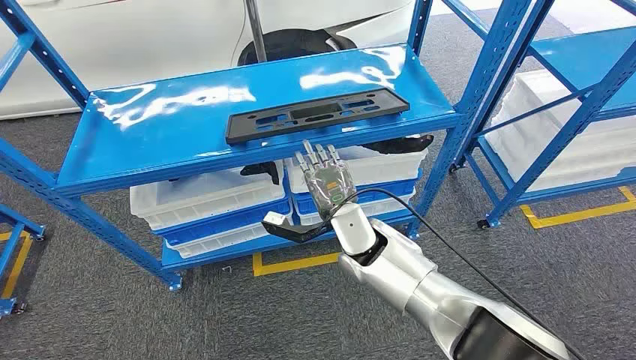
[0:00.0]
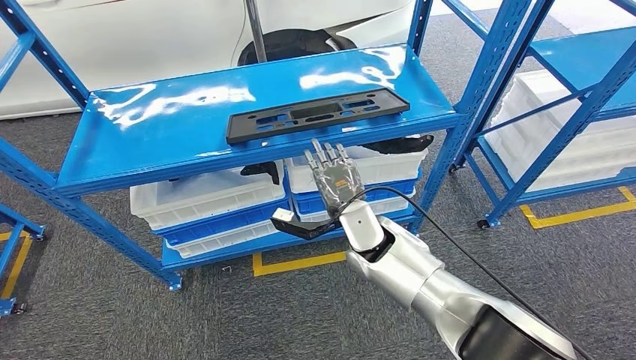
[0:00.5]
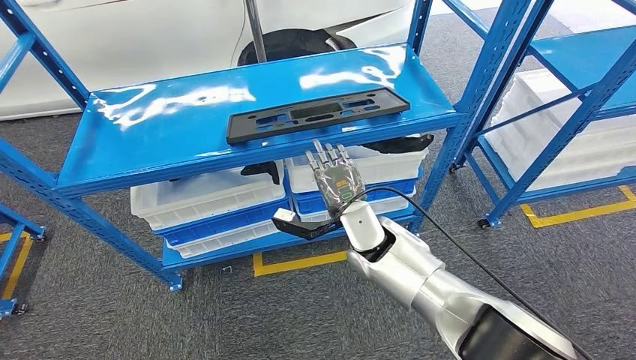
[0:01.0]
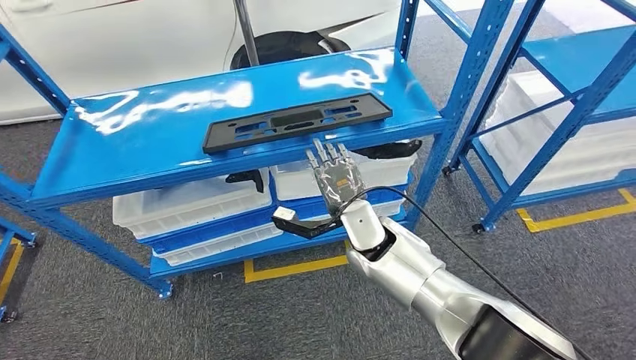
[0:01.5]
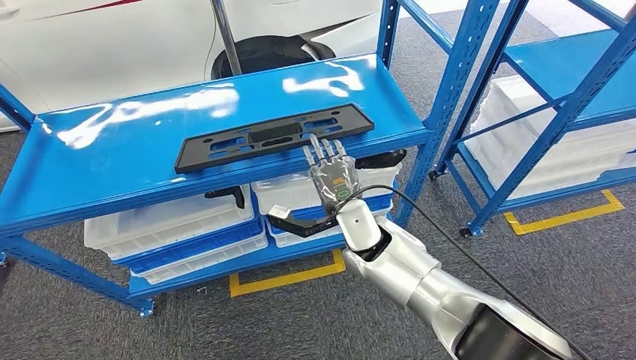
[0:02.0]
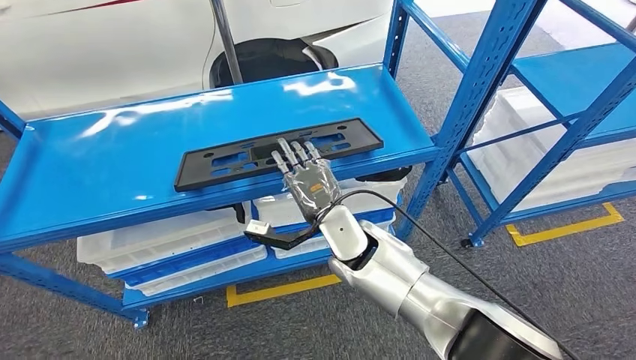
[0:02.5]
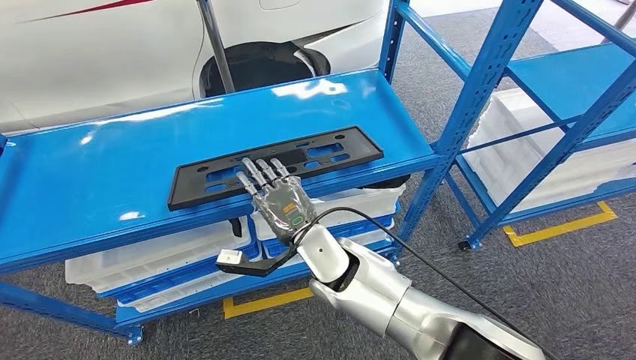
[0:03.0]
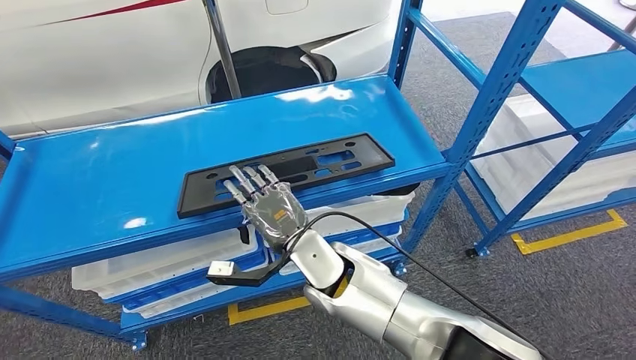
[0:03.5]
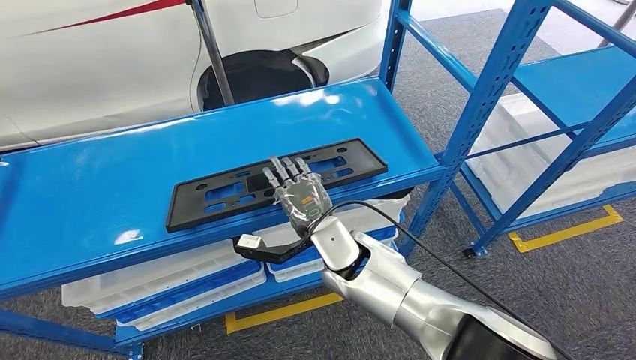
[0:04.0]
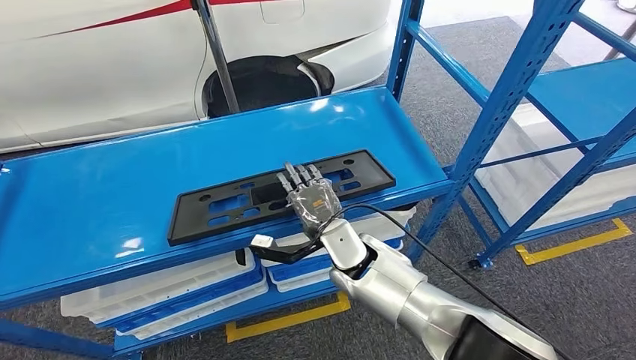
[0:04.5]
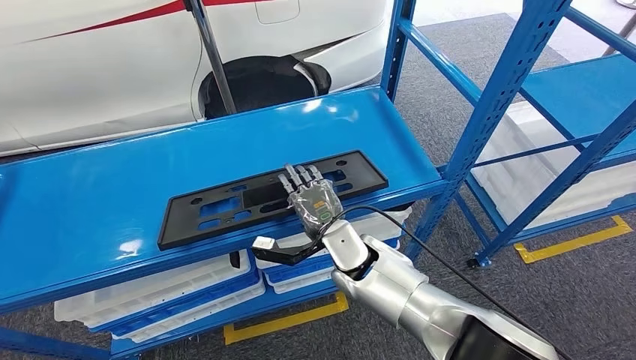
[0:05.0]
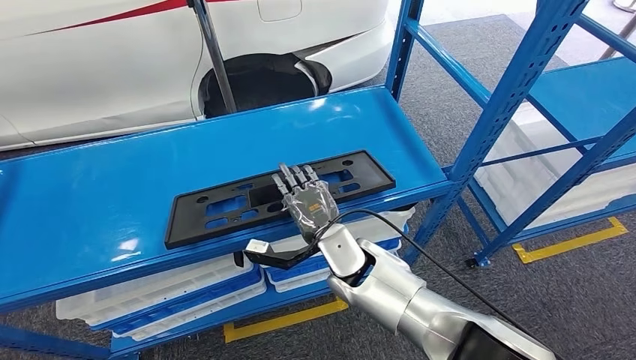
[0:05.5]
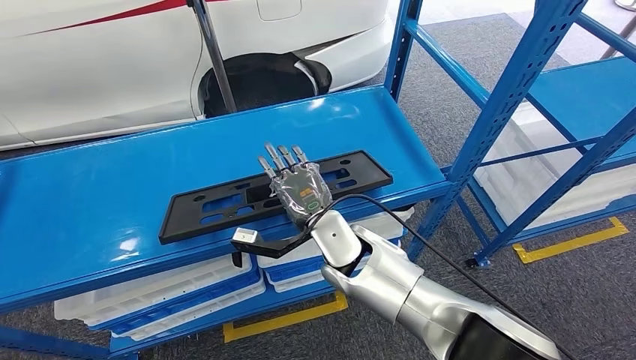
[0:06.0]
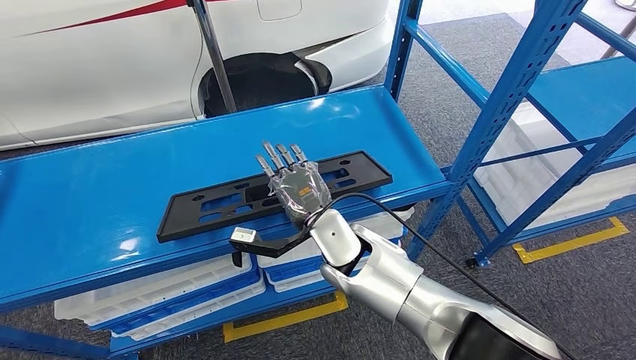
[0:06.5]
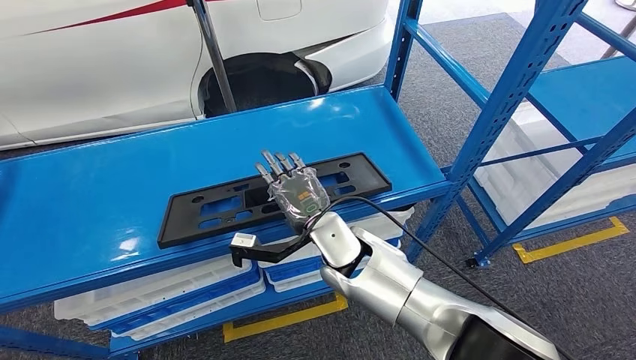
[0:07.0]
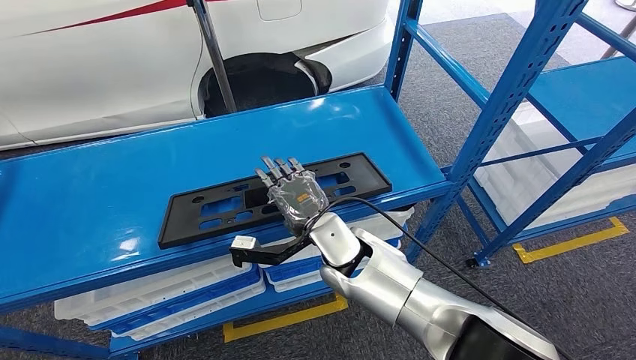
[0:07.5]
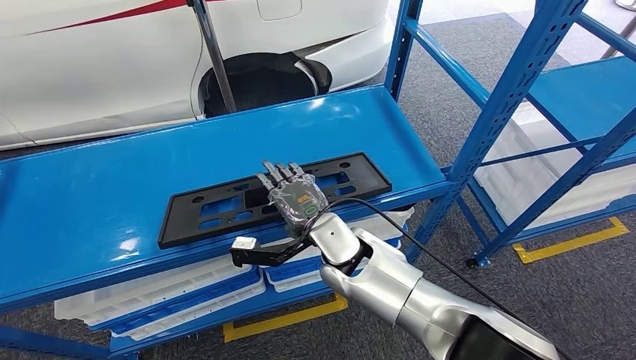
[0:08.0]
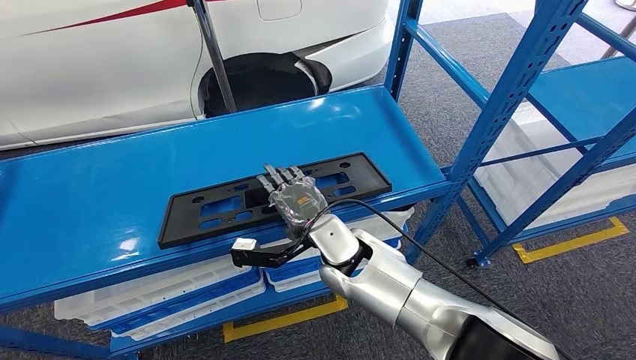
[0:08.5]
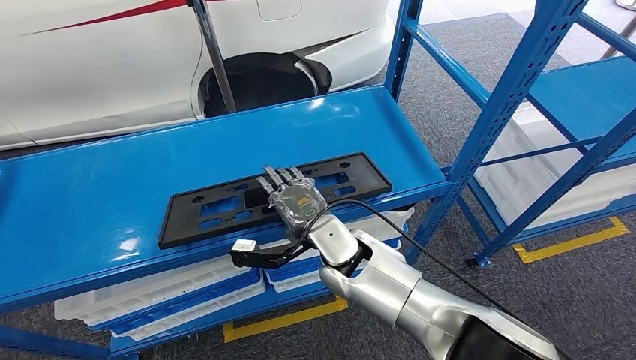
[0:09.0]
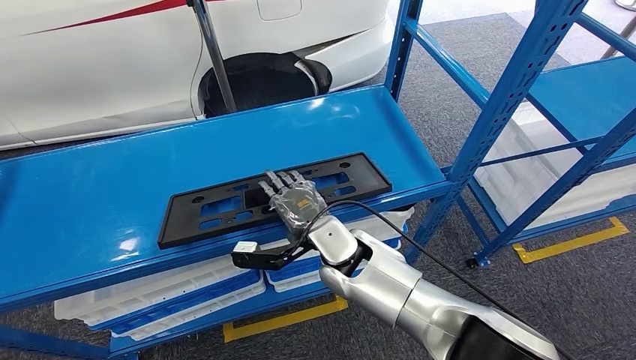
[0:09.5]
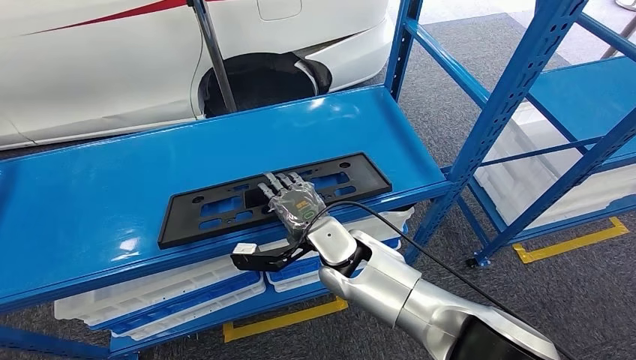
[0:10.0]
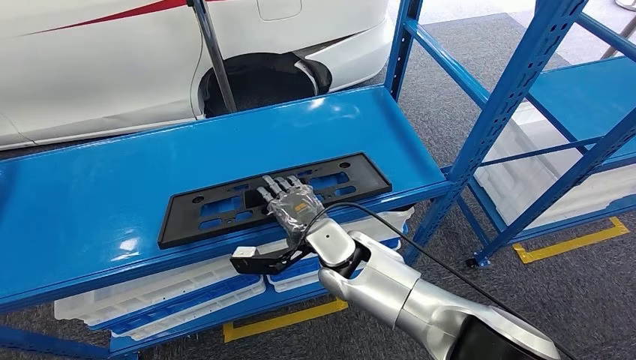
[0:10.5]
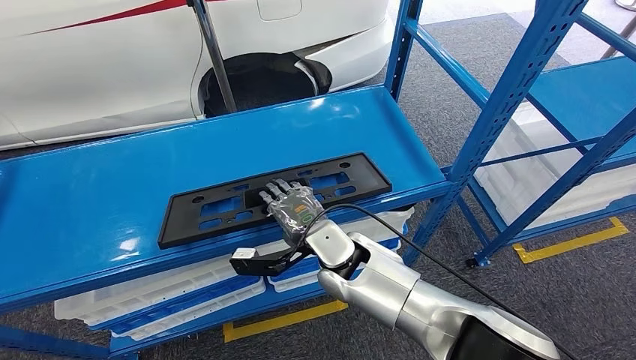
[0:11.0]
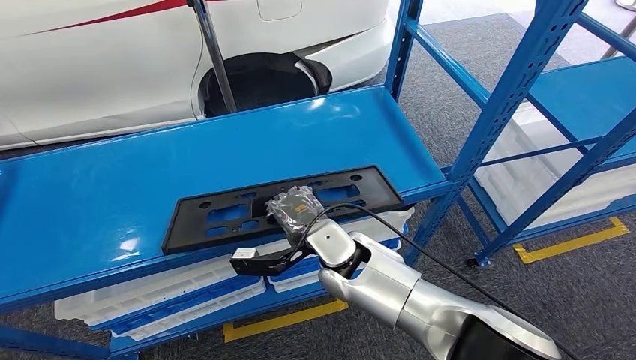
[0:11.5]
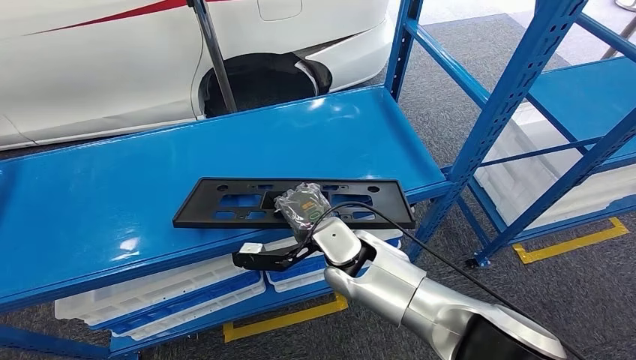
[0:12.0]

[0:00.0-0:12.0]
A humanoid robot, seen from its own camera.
0:06.0 to 0:10.0: The hands make only small movements.
0:10.0 to 0:12.0: Both hands stay put.

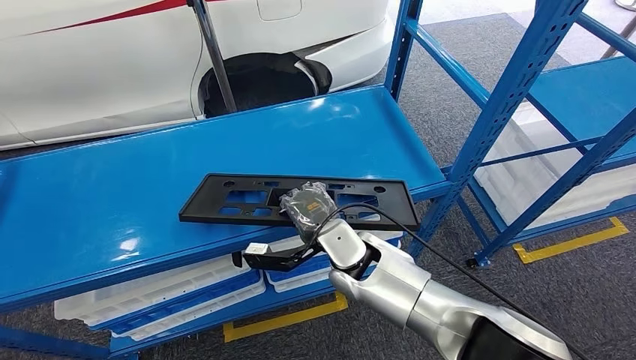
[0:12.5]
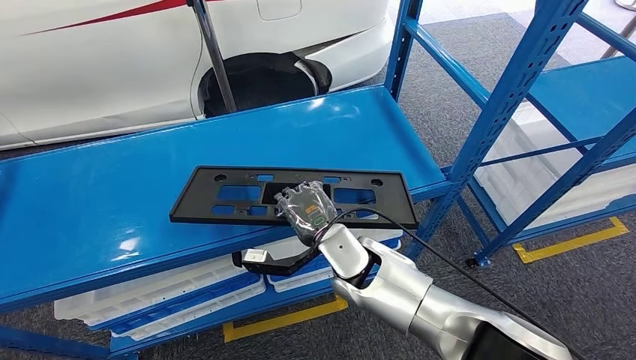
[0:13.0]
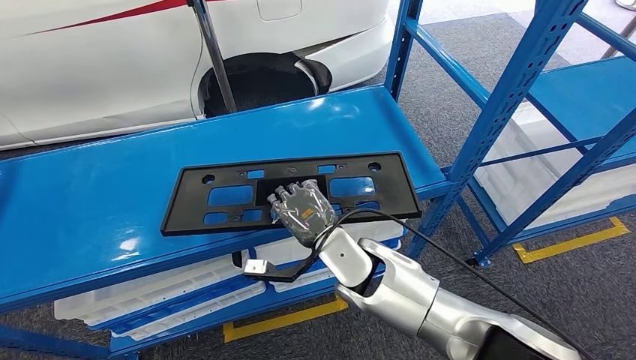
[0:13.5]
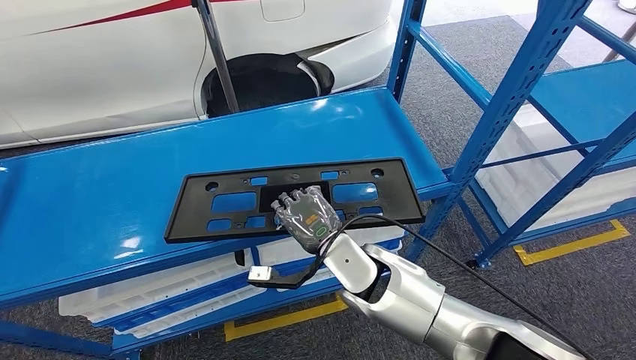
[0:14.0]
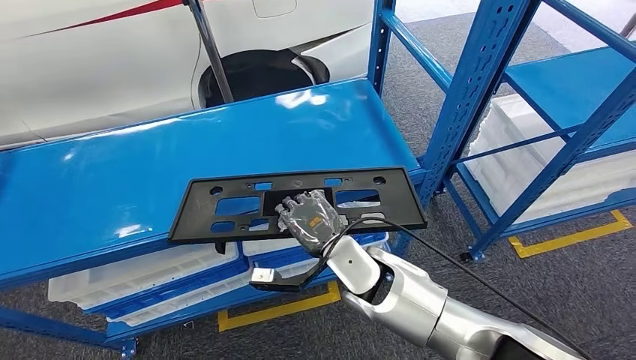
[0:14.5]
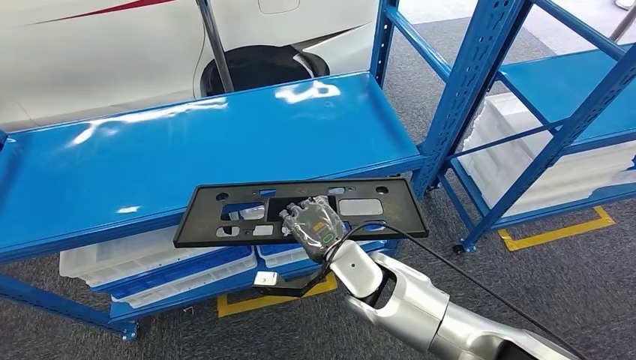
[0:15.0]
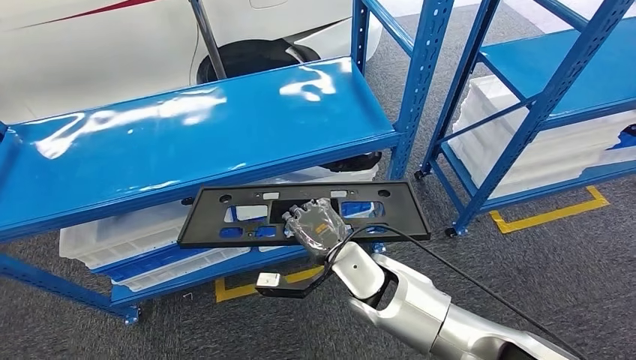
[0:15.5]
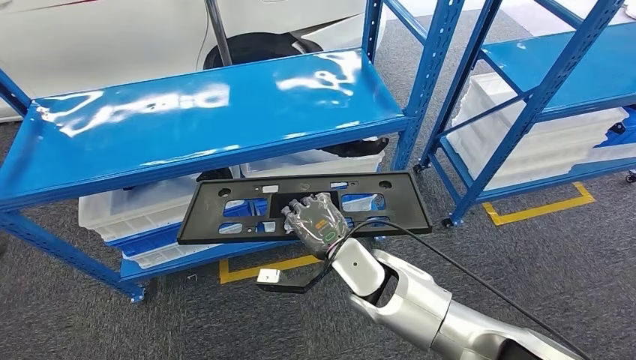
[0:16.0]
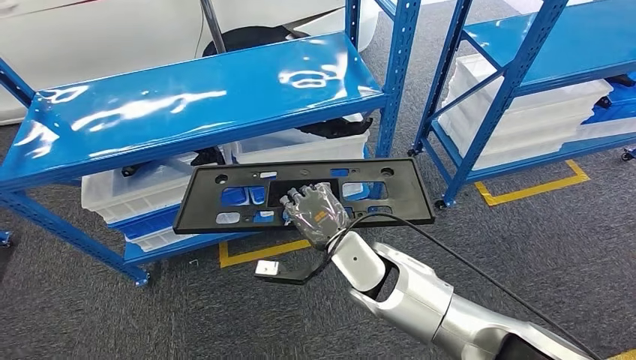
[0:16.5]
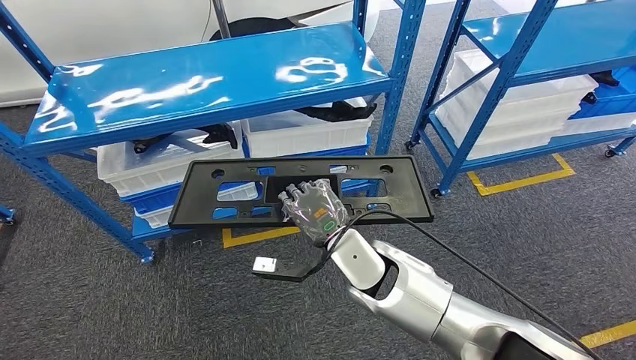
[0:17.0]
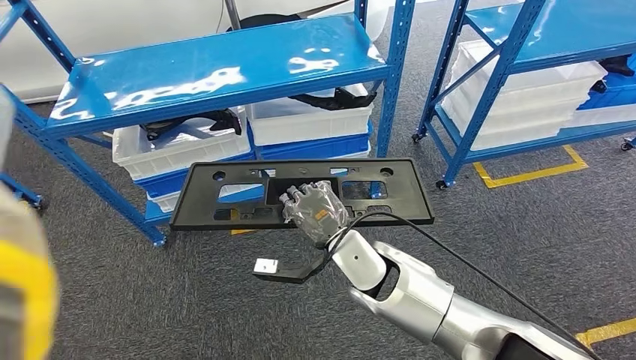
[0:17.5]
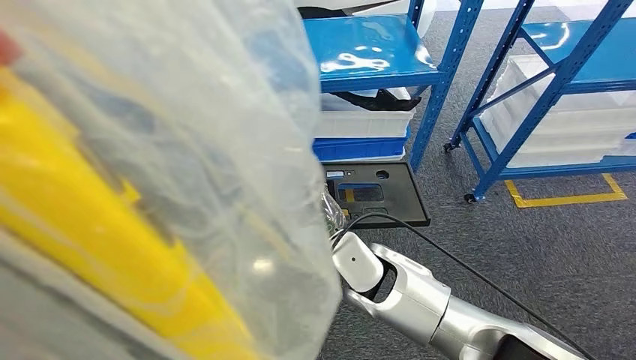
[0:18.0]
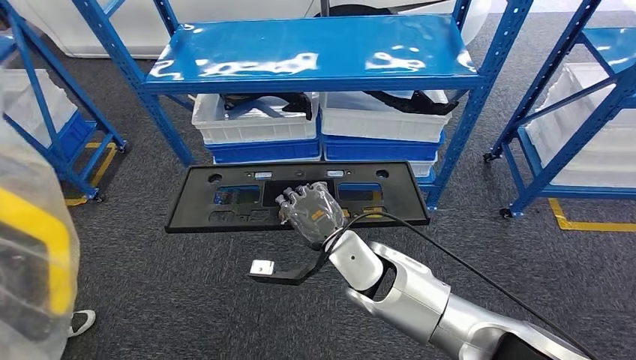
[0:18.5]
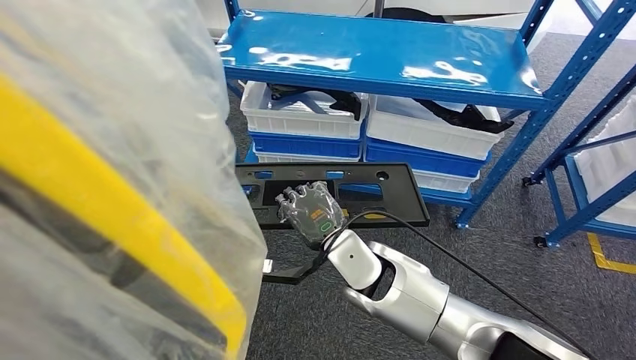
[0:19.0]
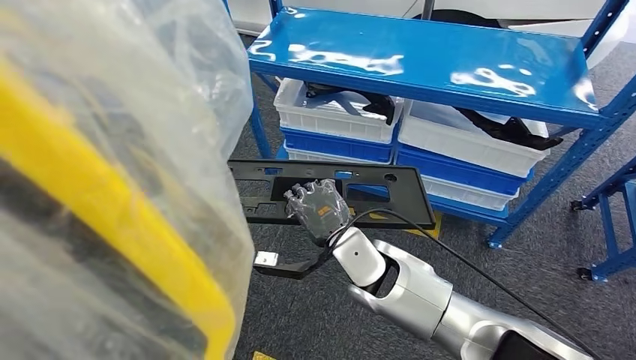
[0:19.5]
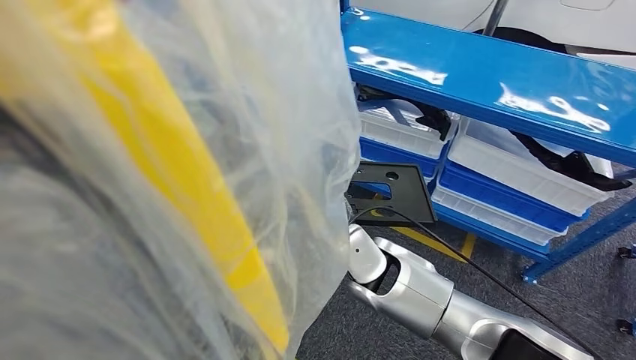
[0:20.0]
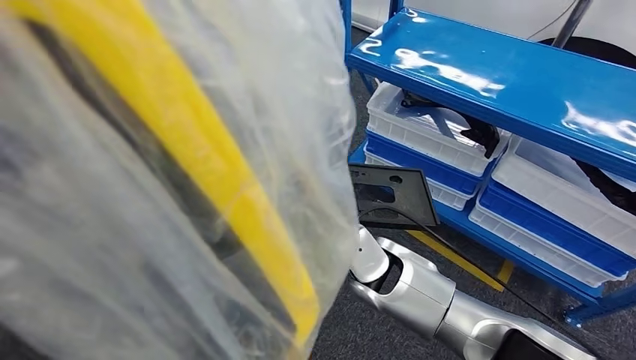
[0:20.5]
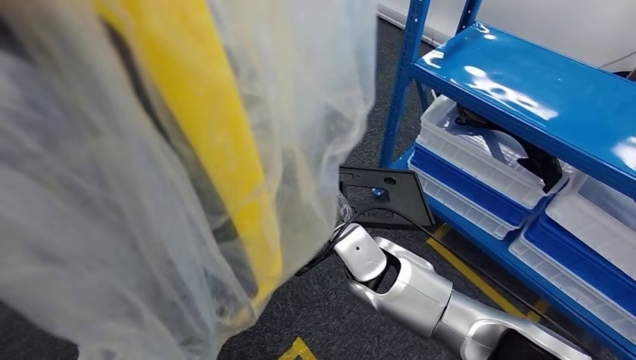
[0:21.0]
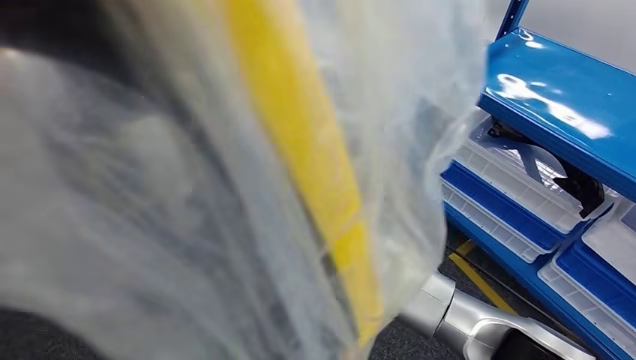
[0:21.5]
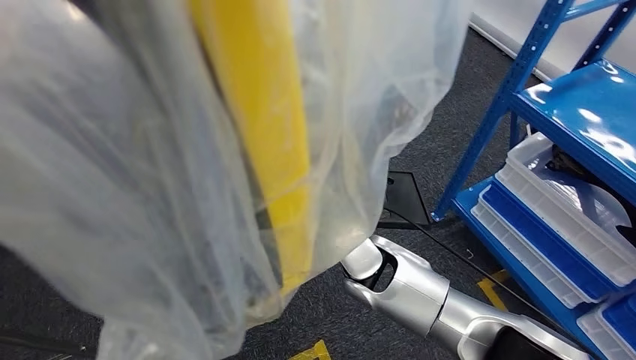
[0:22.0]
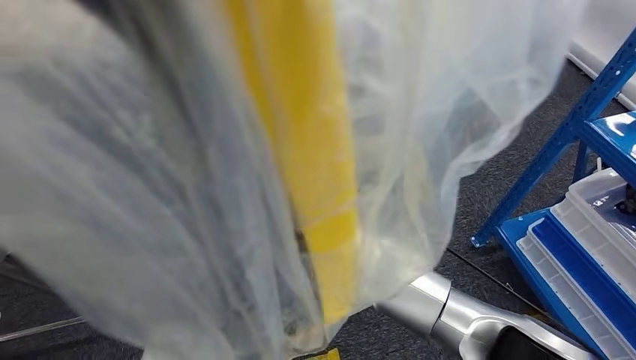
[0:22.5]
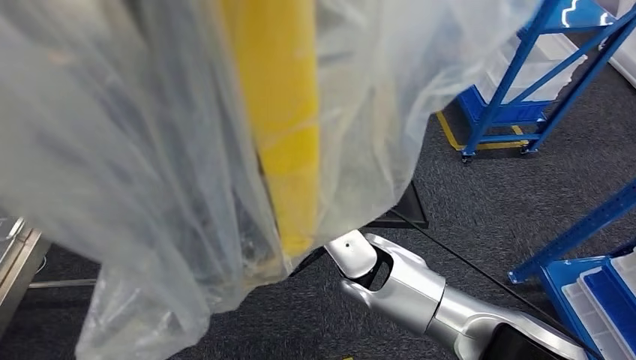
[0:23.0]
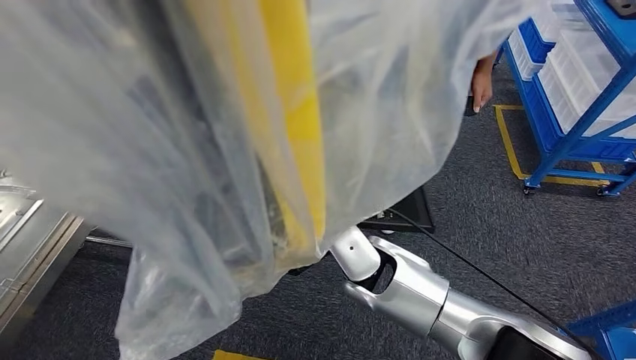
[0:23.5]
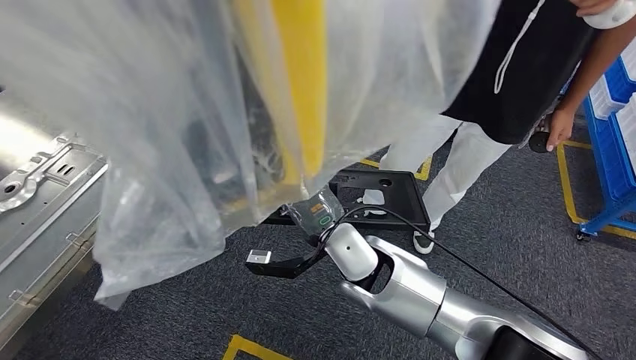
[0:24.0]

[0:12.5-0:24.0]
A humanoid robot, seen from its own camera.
Step, 0:12.5 to 0:14.5: Pick up the large material from the shelf.
